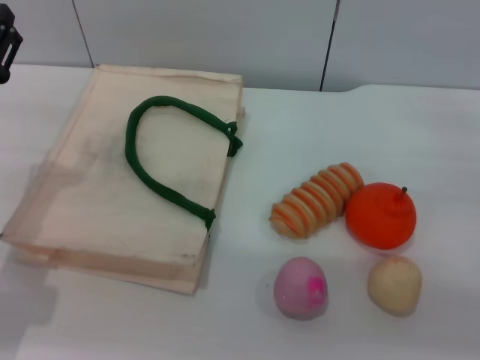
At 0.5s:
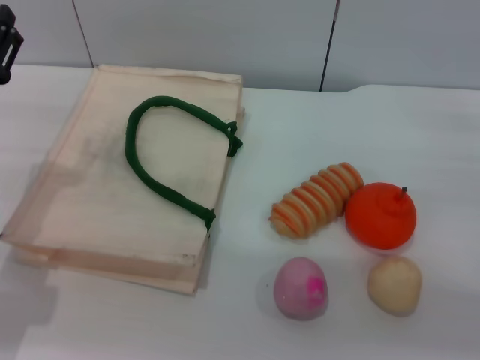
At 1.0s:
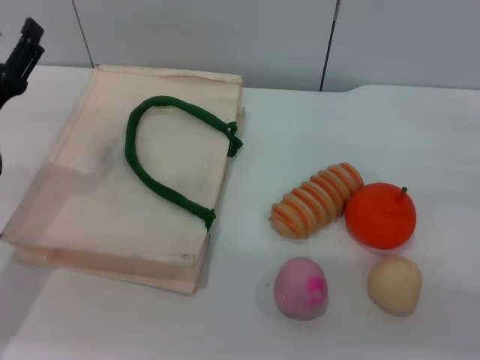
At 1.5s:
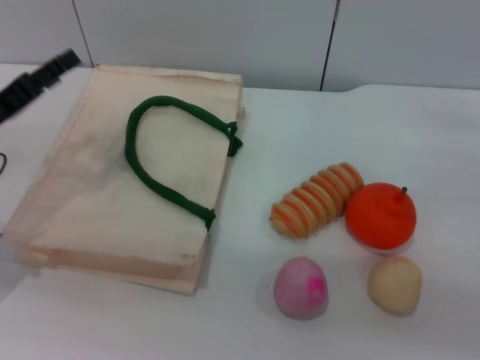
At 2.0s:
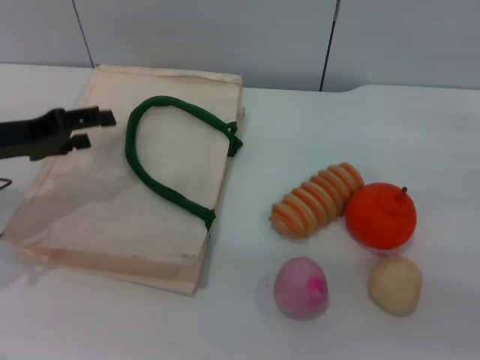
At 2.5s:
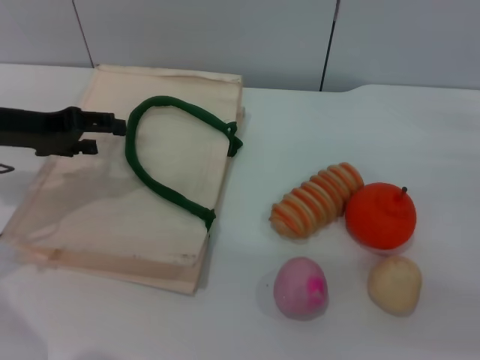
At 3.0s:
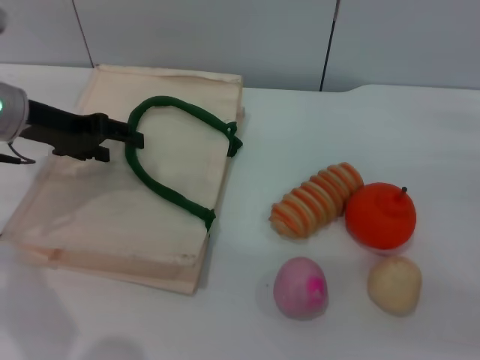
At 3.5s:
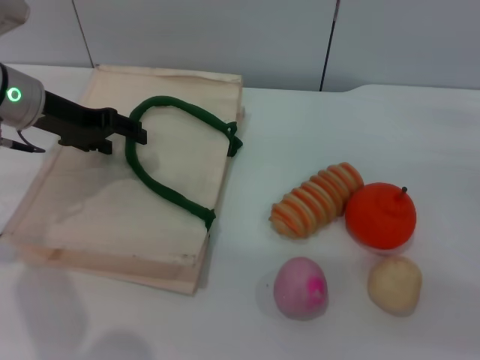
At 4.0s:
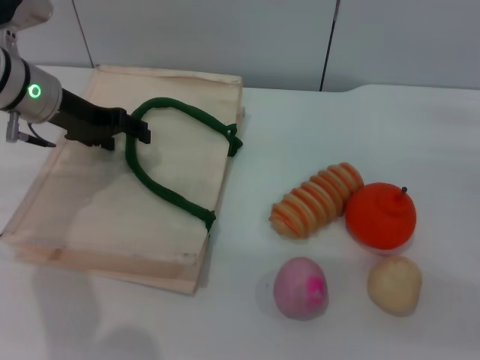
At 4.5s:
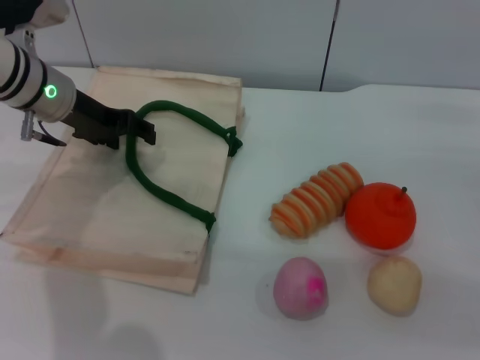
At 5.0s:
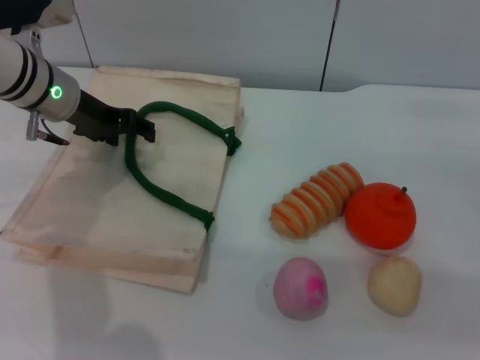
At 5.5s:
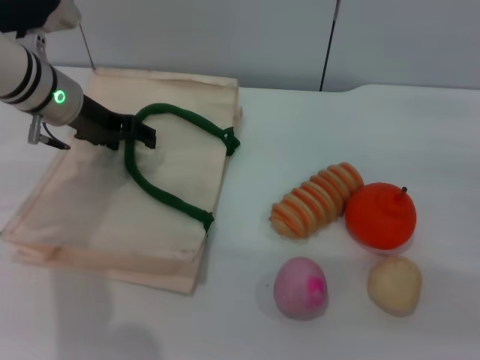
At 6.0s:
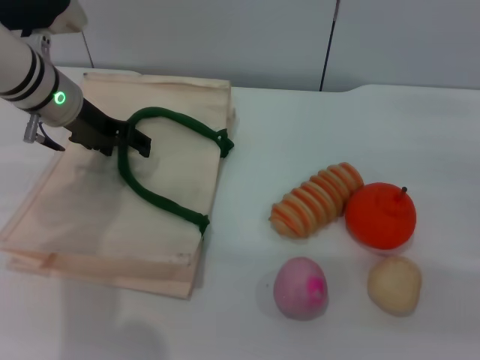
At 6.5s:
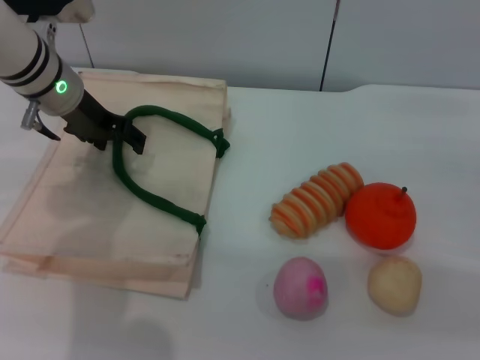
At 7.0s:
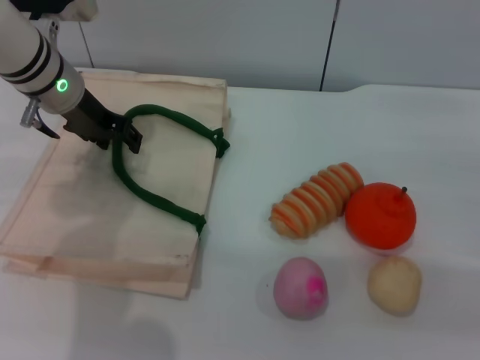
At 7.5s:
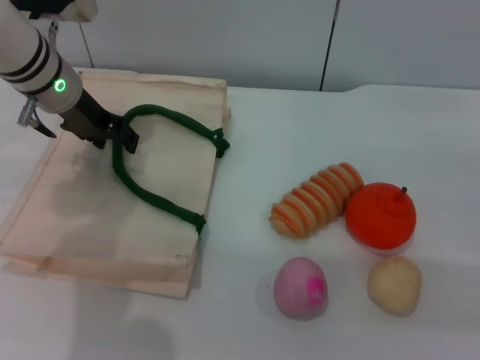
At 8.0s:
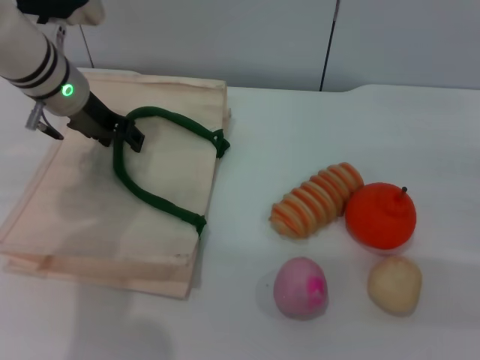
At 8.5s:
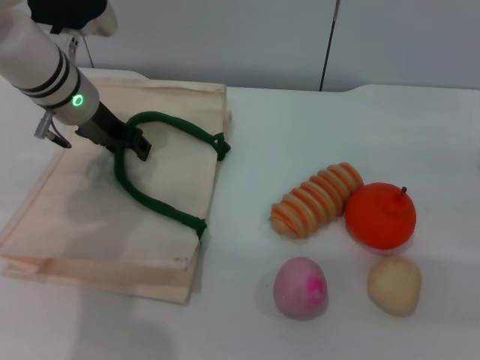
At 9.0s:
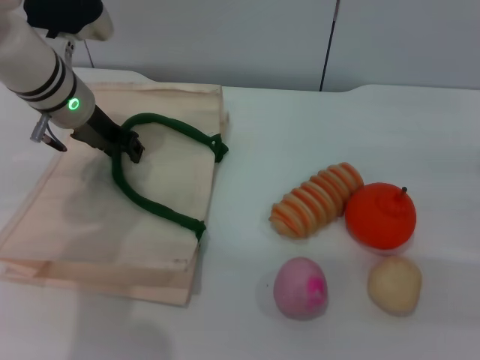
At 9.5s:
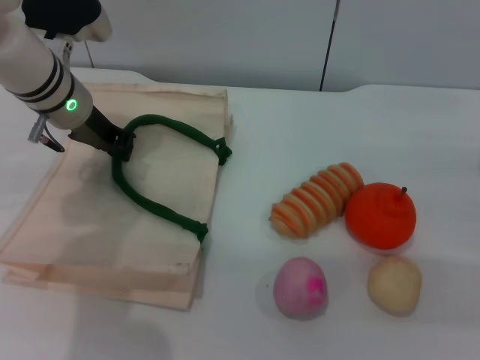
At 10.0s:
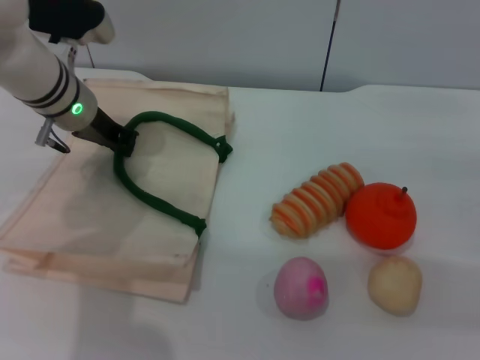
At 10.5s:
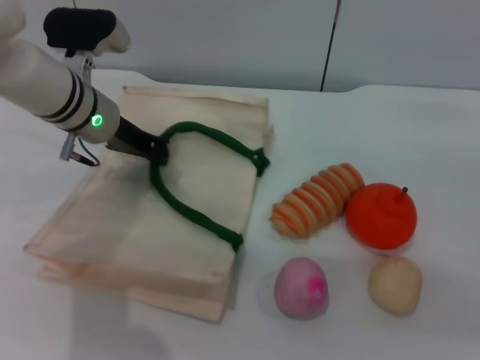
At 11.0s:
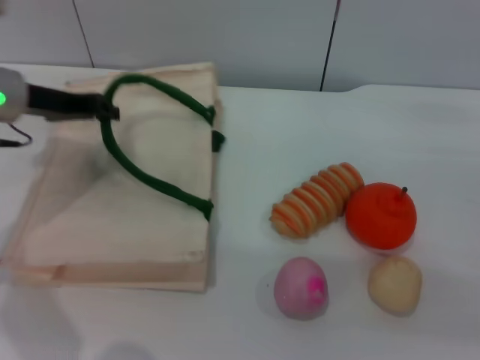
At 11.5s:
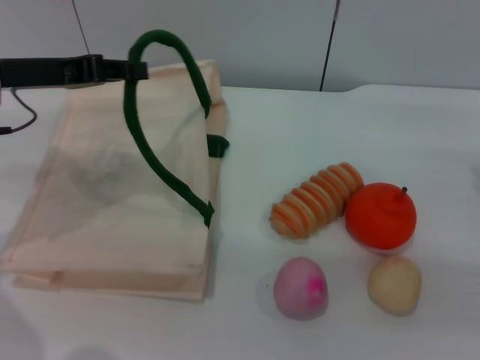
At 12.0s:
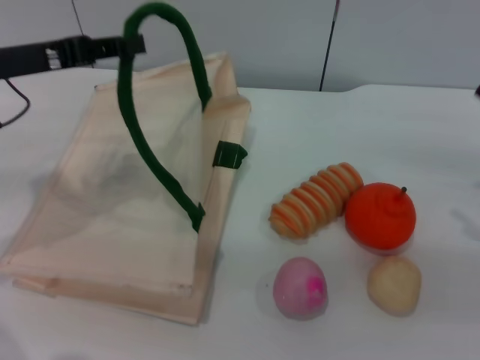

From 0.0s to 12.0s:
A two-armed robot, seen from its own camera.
Task of the whole recording: pick up the egg yolk pastry from the table and place it in the white handbag.
From 0.0s to 2.0s: The left gripper ends up roughly 5 cm from where it was.
From 2.0s to 4.0s: The left gripper heads forward and to the right, covering about 10 cm.
From 4.0s to 6.0s: The grippers move only a little.
From 6.0s to 8.0s: The grippers make only small movements.
From 8.0s to 10.0s: The left gripper closes.
From 10.0s to 12.0s: The left gripper goes about 15 cm backward, to the left and upward. The right gripper is displaced to the right by roughly 5 cm.

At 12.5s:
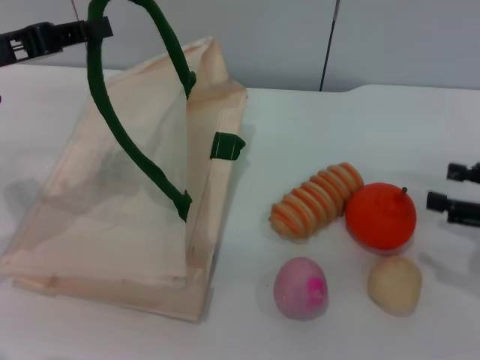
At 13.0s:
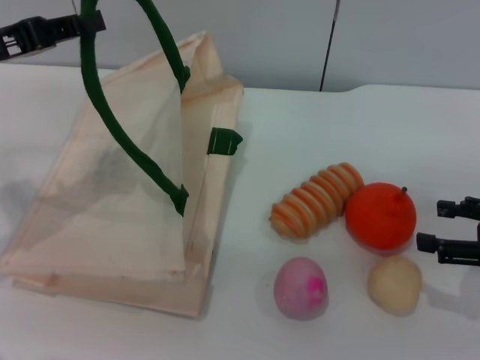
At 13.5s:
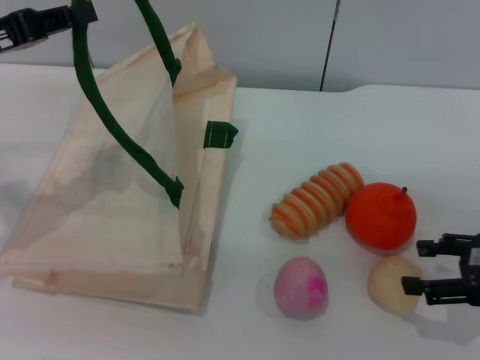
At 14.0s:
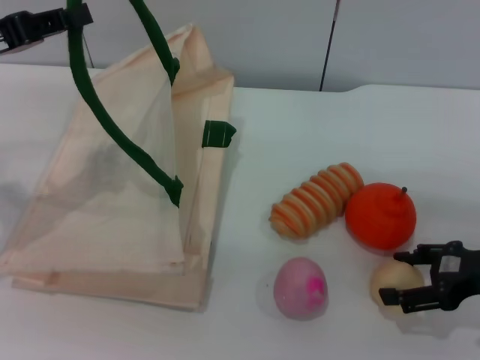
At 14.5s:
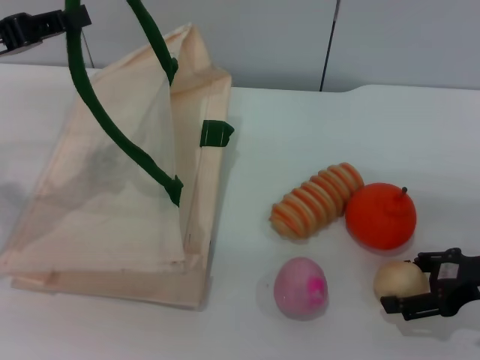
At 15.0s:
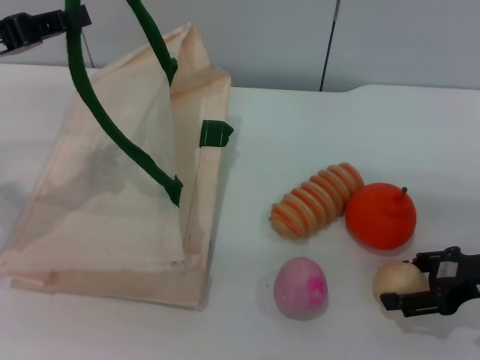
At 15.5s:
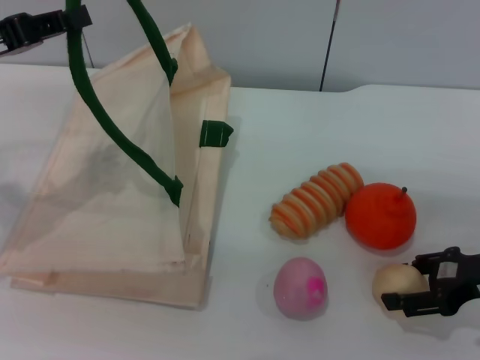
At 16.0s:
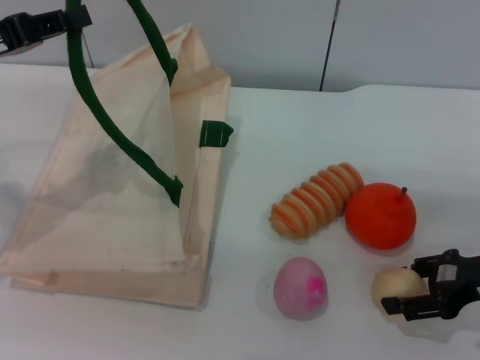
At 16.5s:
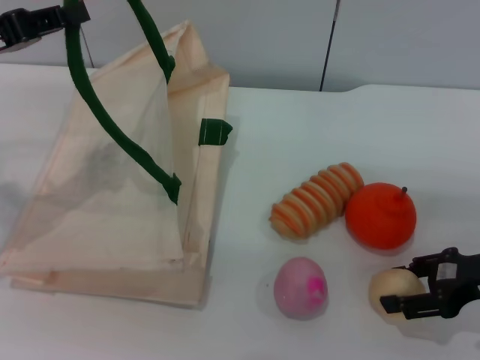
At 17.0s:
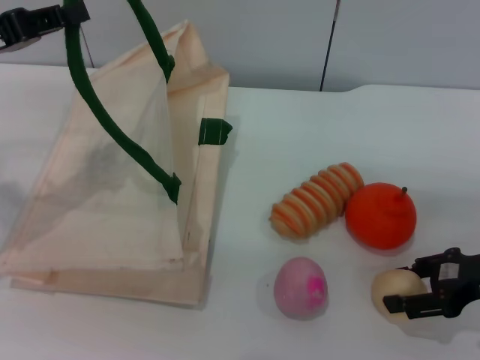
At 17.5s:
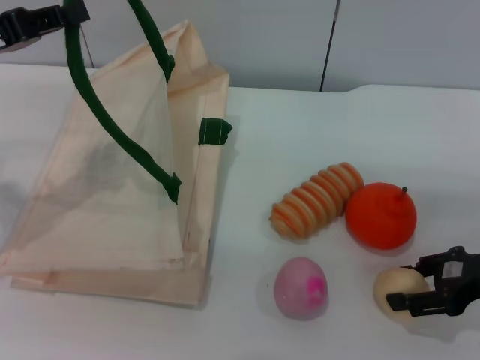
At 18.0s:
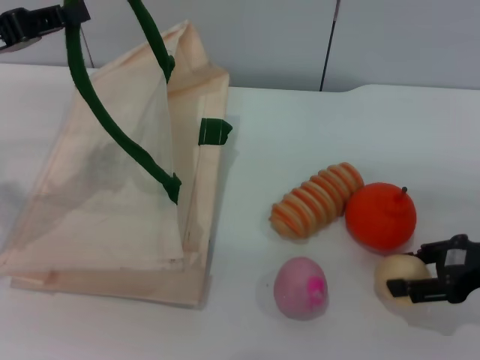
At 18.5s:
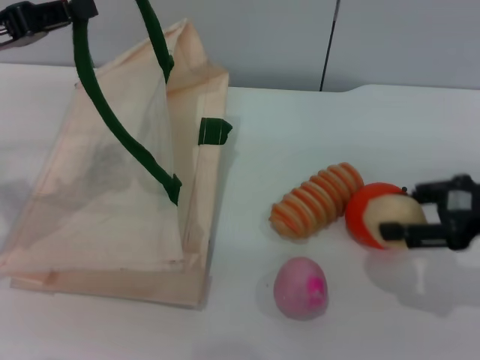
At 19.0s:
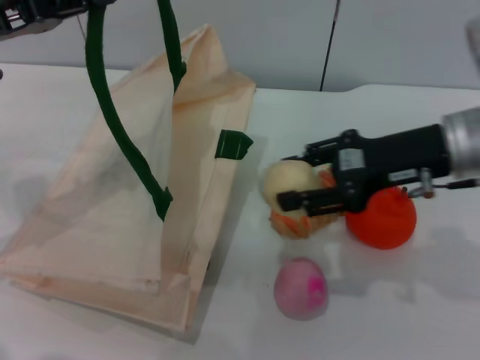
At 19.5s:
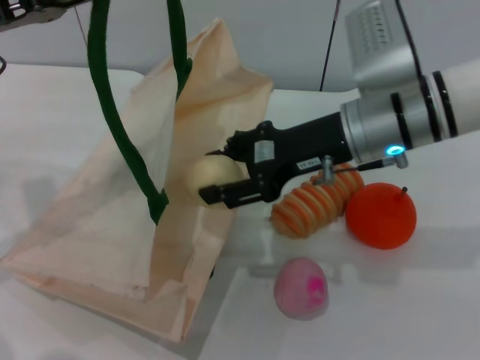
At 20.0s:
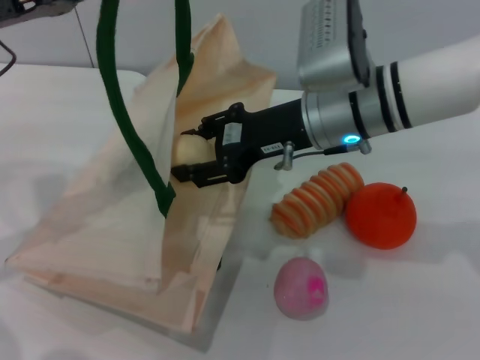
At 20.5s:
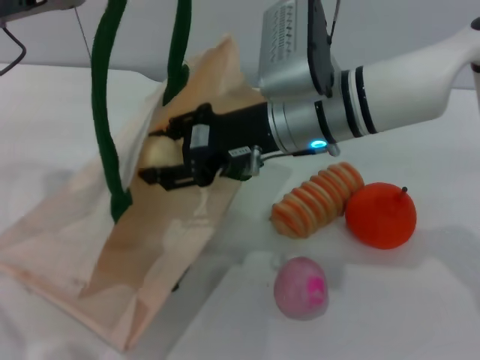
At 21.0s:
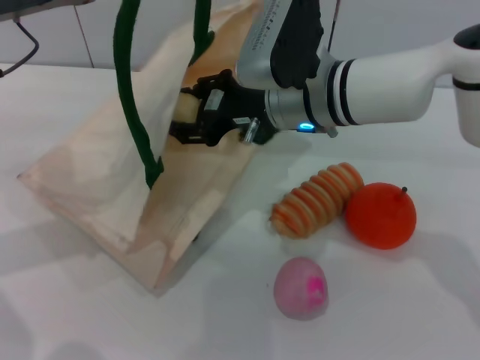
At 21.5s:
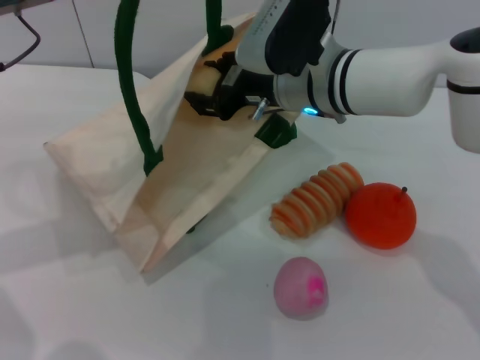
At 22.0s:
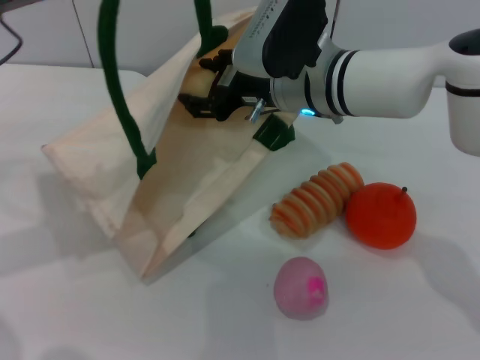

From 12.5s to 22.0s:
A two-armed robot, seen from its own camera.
Task of the whole recording: pick up the egg yolk pastry from the table and place it in the white handbag.
Step, from 12.5s to 18.0s: Pick up the egg yolk pastry with the right gripper.
From 12.5s to 14.5s: The right gripper travels to the left by about 5 cm.
From 14.5s to 16.5s: The right gripper closes its fingers.
From 16.5s to 18.0s: Both grippers stay put.
From 18.0s to 20.0s: The right gripper moves to the left and forward, about 25 cm.

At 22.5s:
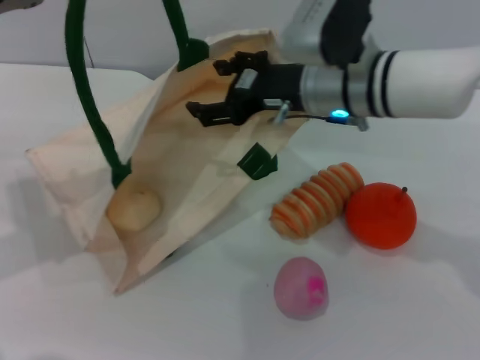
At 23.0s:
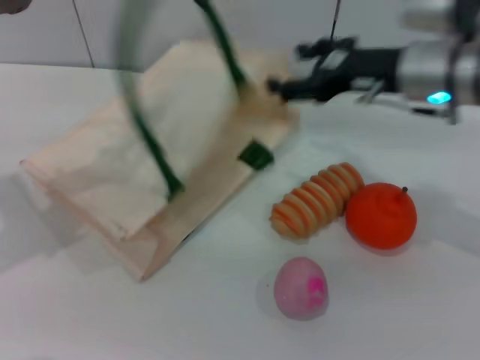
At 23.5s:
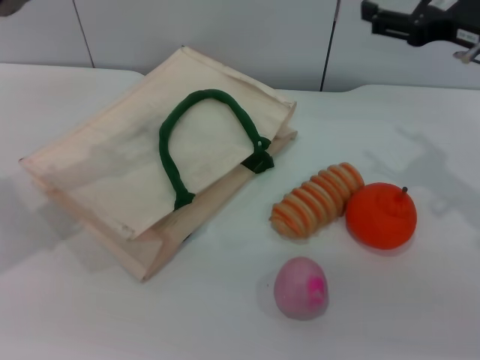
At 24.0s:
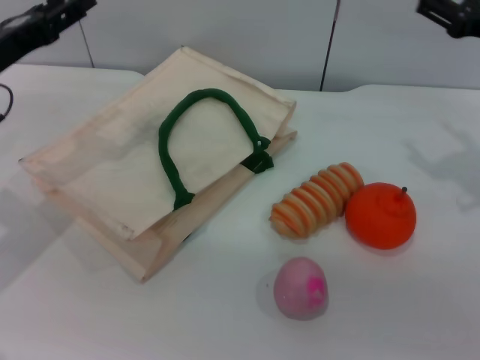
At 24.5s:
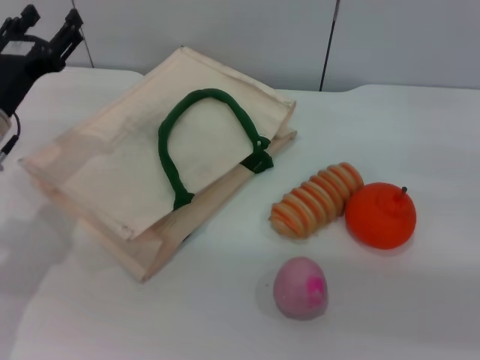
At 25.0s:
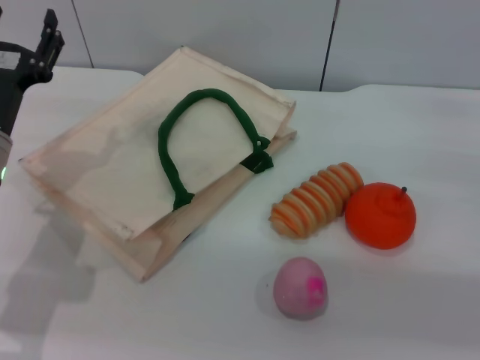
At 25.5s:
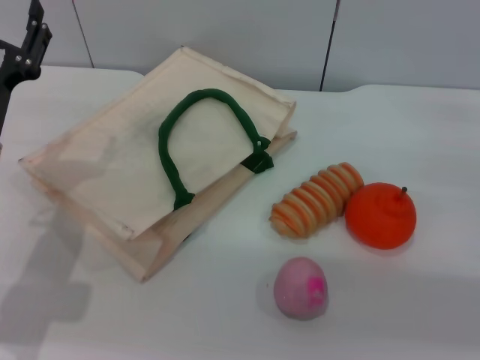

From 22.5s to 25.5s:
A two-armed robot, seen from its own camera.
Task of the whole recording: pick up the egg yolk pastry from the table and place it in the white handbag.
From 22.5s to 24.0s: The left gripper is displaced downward by approximately 10 cm, and opens, while the right gripper is displaced to the right by approximately 20 cm.
From 24.0s to 25.5s: The left gripper travels downward and backward by about 10 cm. Meanwhile the right gripper goes roughly 10 cm downward and to the right.

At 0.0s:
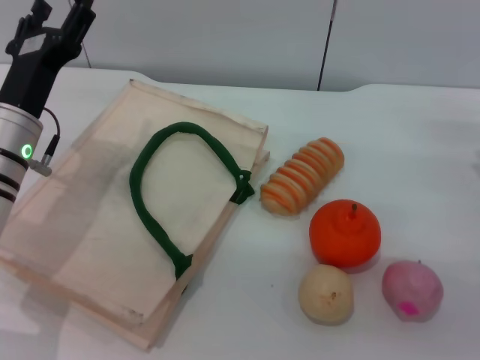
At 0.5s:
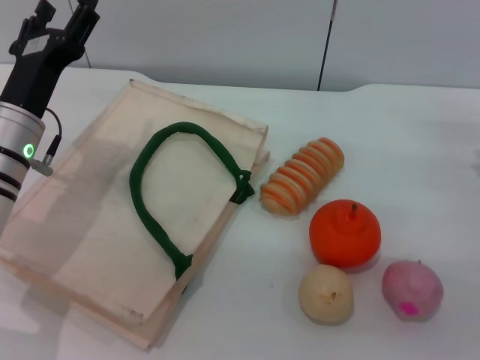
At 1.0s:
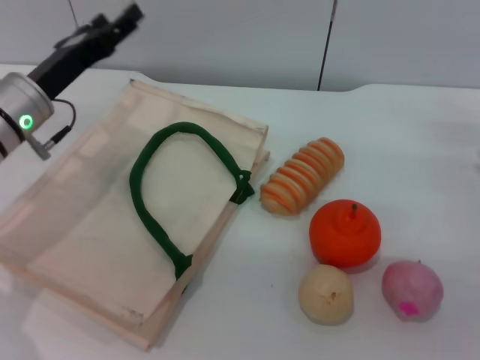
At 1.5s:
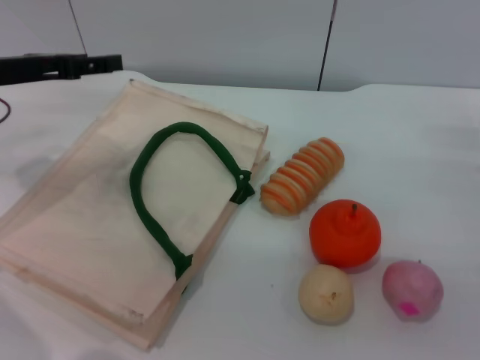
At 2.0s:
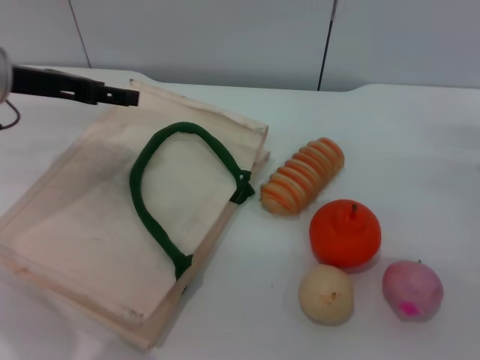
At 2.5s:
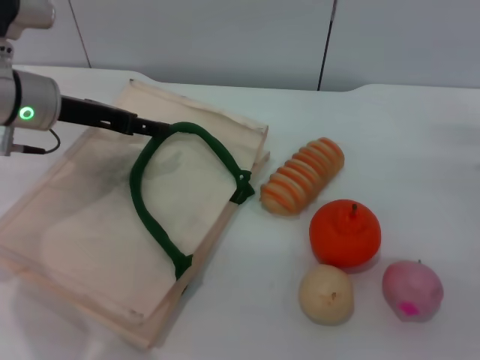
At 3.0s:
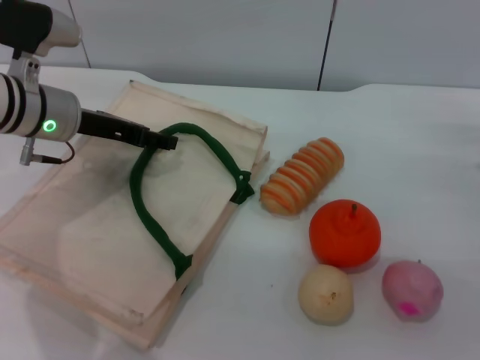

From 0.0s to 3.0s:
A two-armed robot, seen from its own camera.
Task of the whole recording: pick up the peach from the table and place it in the white handbag.
From 0.0s to 1.5s: The left gripper travels upward and to the left by some 10 cm.
From 1.5s to 3.0s: The left gripper is displaced to the right by approximately 5 cm.
